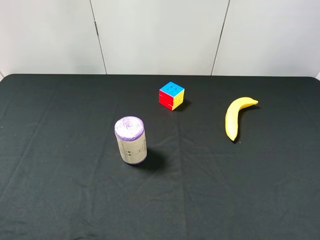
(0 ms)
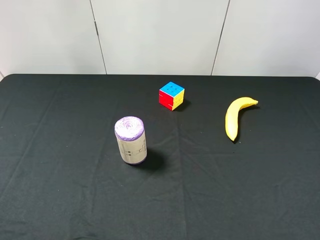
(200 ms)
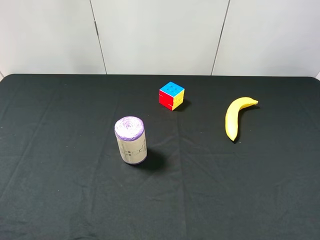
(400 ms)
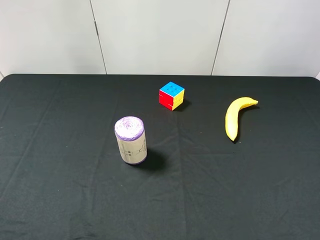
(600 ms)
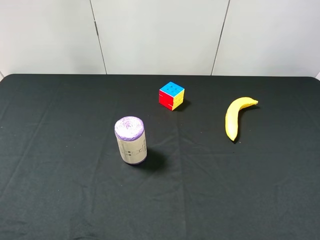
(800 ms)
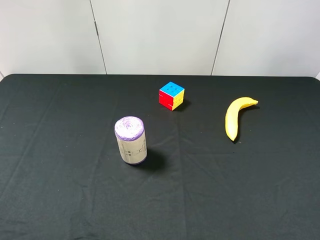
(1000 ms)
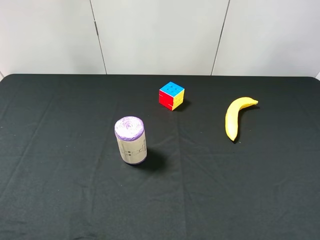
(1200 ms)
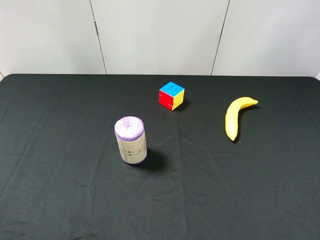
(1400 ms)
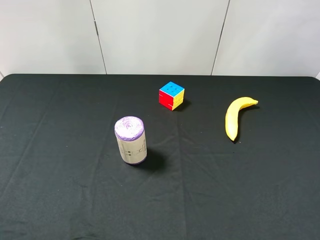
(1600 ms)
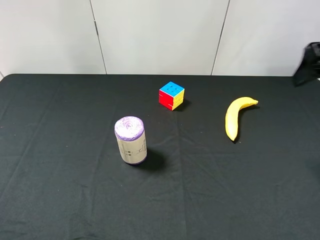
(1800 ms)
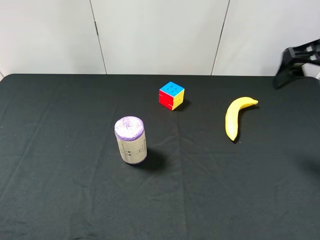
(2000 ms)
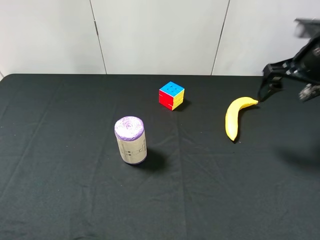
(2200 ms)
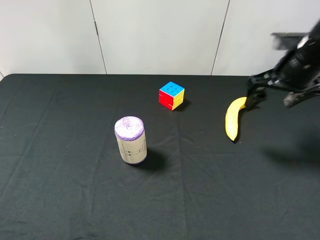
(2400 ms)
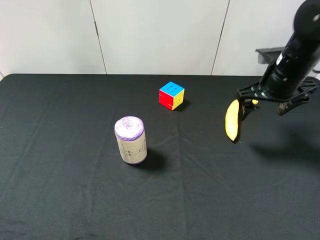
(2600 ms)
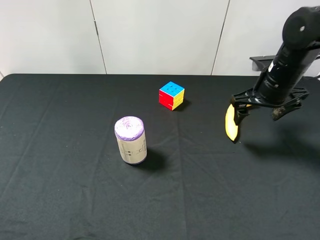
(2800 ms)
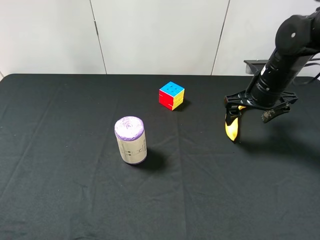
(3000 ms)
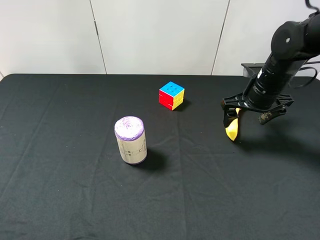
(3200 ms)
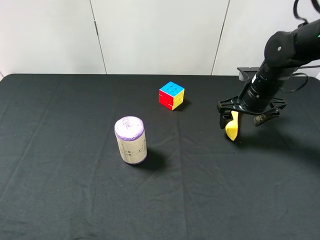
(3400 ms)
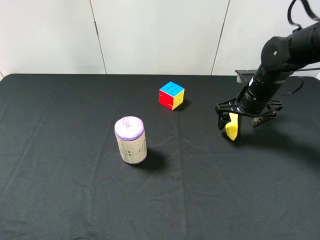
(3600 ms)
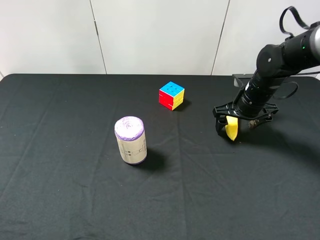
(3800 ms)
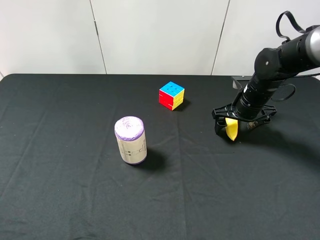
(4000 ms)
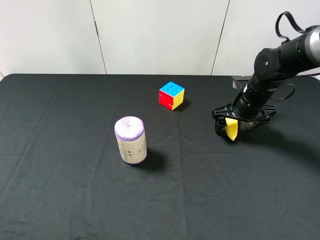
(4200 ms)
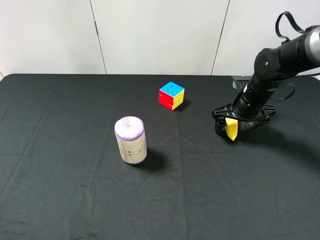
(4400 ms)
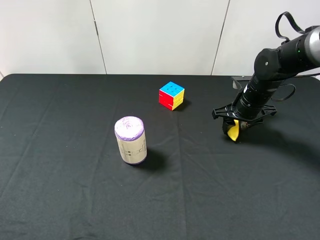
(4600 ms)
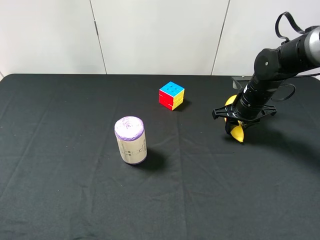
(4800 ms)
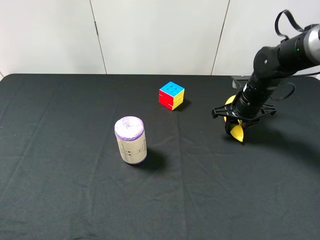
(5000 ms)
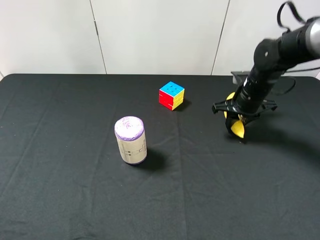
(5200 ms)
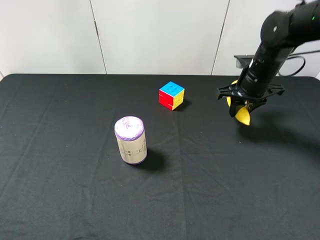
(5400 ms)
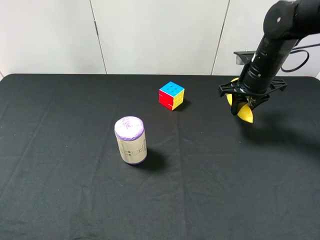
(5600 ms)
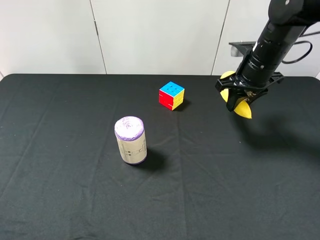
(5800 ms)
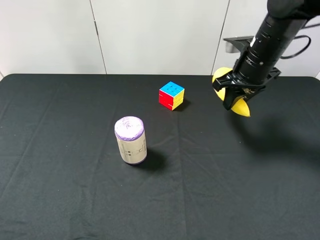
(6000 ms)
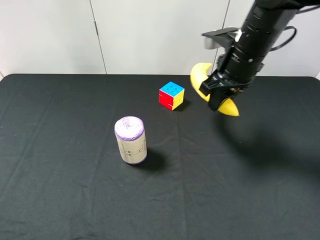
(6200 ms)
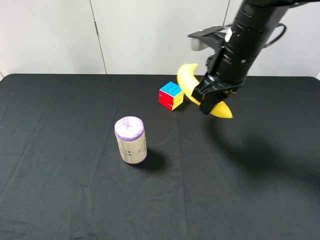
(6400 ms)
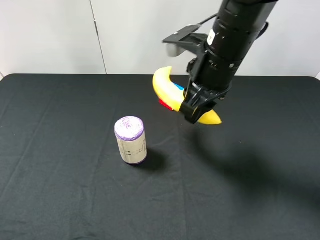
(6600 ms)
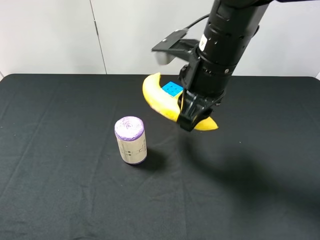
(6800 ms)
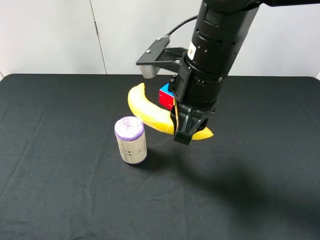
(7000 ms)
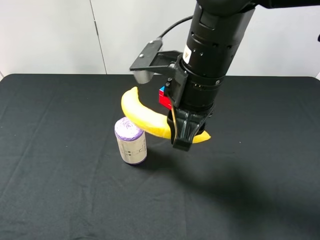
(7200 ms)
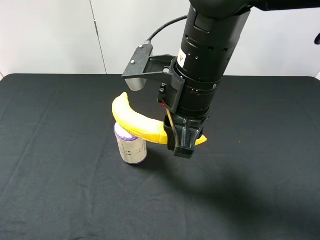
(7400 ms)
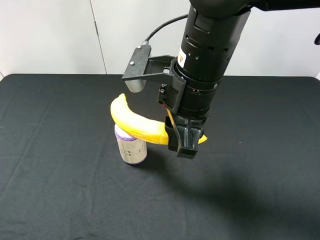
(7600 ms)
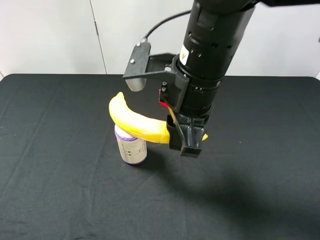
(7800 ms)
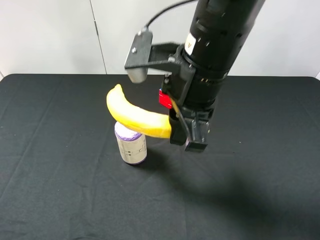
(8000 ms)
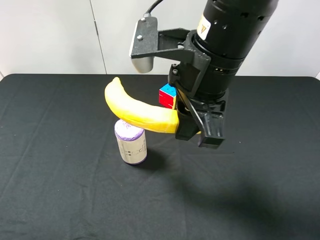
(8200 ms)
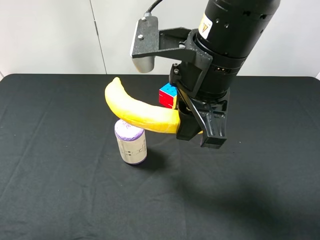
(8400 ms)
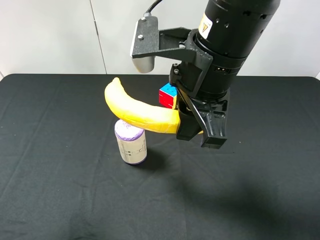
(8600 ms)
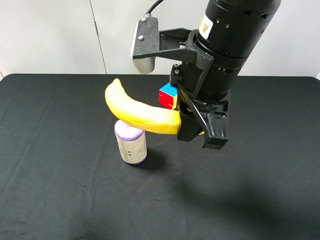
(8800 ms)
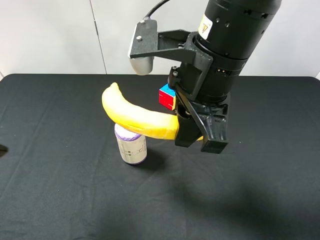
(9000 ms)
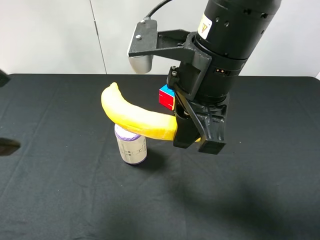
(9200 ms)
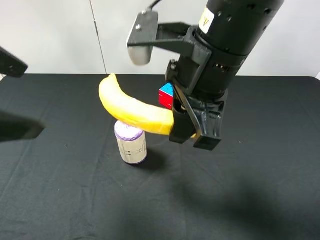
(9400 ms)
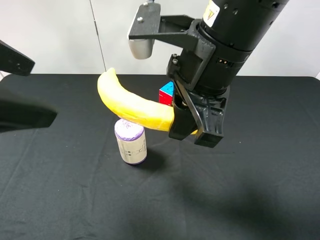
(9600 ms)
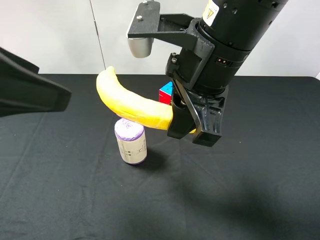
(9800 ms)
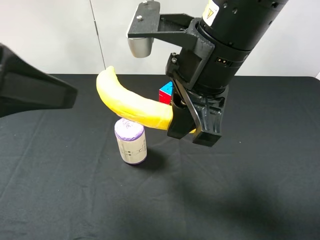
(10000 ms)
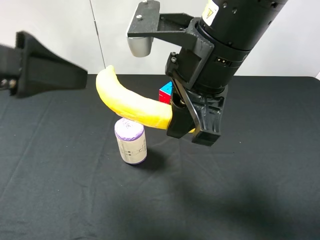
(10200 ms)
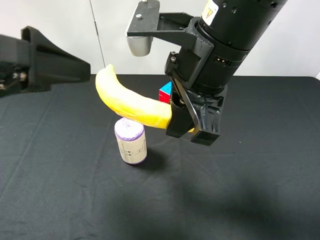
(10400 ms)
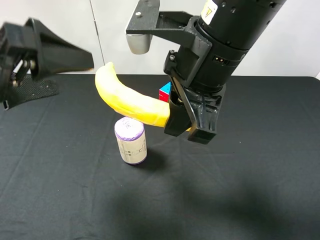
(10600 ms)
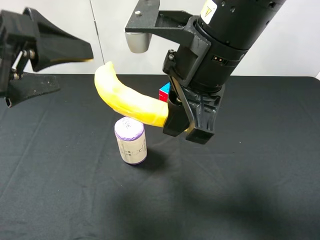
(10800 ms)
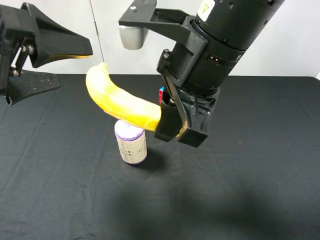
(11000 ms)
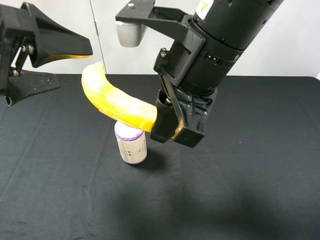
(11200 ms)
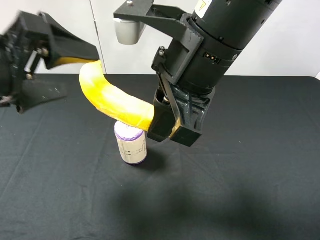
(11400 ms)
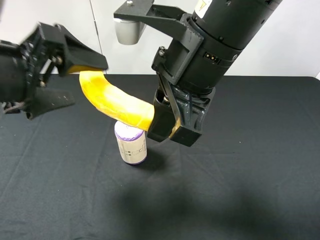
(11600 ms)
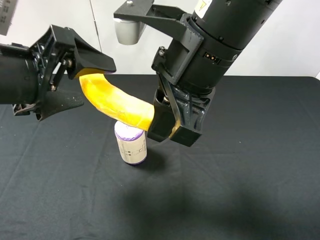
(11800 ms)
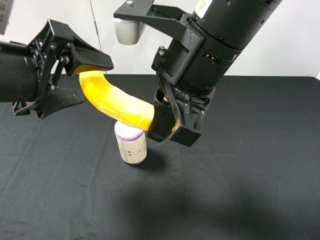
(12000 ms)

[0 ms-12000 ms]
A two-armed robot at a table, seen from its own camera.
Task of the whole recording: use the right gripper to pick up the item and transfer it from the right gripper to the left gripper.
Step, 0 ms to 4600 ms: Use the right gripper to grab the banana on the right side of the table.
1600 ms to 3000 ms: The right gripper shifts some 25 cm downward and forward.
3000 ms to 4400 ms: The right gripper goes roughly 5 cm downward.
4400 ms to 6000 ms: The right gripper goes about 10 cm upward, and closes its fingers.
6000 ms to 7600 ms: The right gripper goes approximately 20 cm to the left and backward.
7600 ms to 9000 ms: The left gripper heads forward, to the right and upward, covering about 15 cm.
9000 ms to 10400 ms: The left gripper moves about 5 cm.

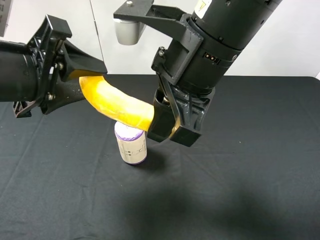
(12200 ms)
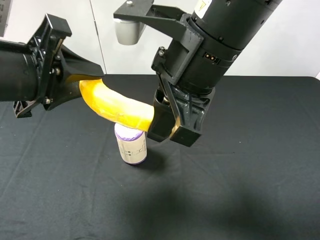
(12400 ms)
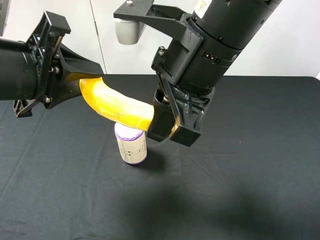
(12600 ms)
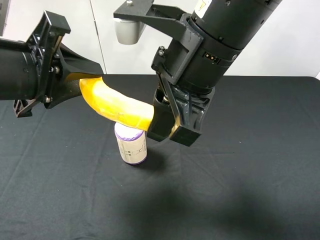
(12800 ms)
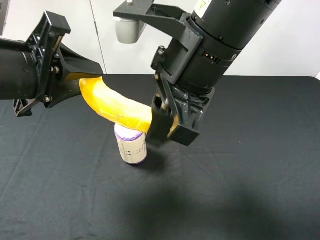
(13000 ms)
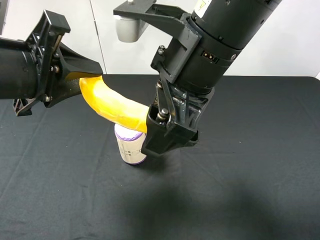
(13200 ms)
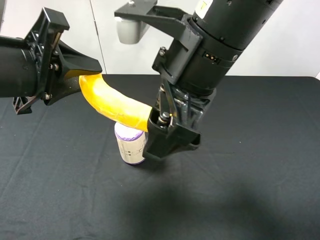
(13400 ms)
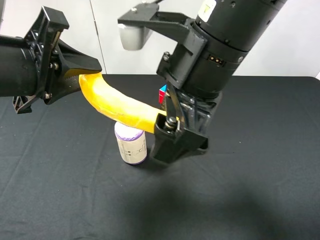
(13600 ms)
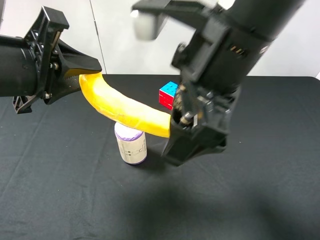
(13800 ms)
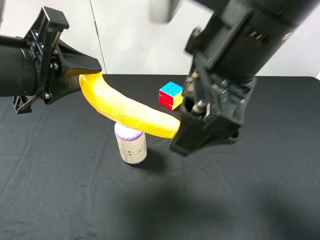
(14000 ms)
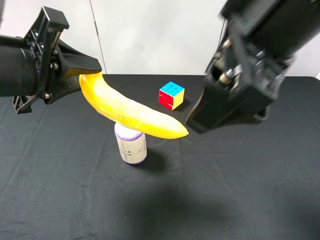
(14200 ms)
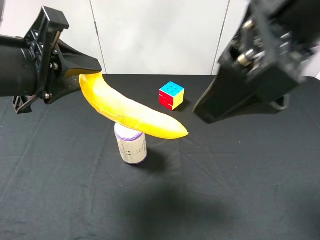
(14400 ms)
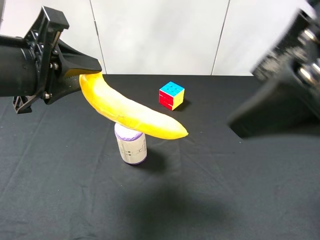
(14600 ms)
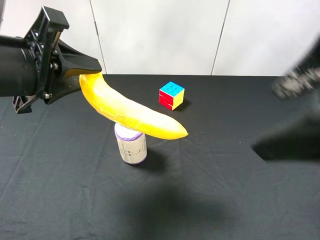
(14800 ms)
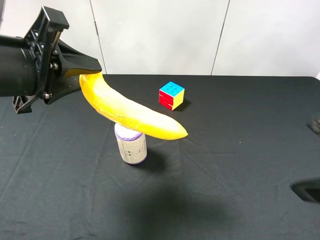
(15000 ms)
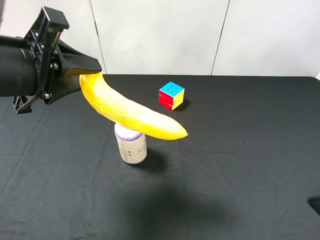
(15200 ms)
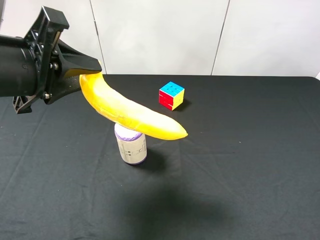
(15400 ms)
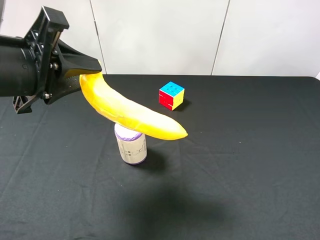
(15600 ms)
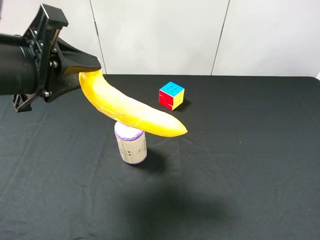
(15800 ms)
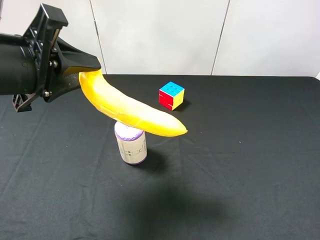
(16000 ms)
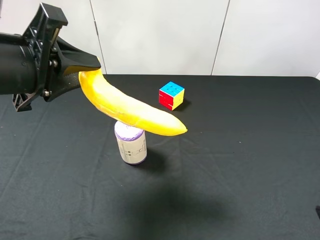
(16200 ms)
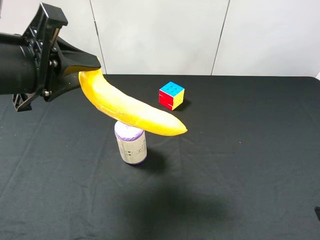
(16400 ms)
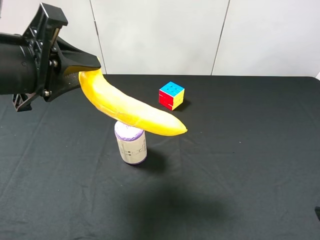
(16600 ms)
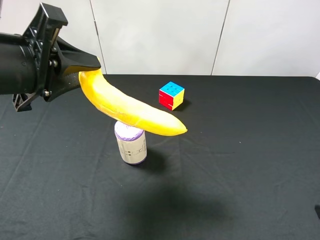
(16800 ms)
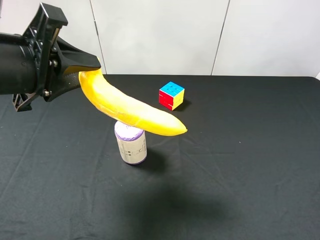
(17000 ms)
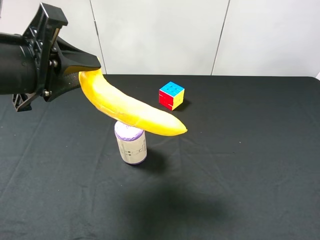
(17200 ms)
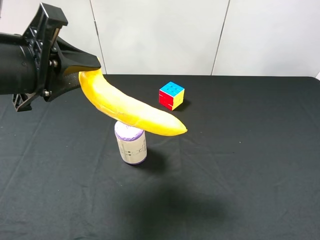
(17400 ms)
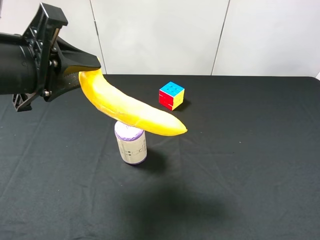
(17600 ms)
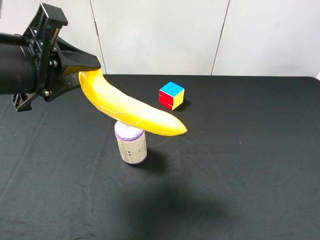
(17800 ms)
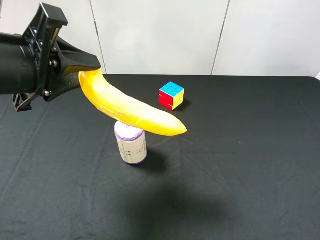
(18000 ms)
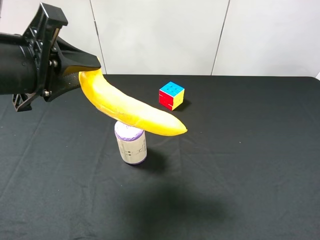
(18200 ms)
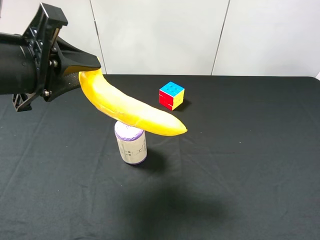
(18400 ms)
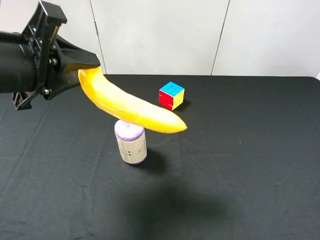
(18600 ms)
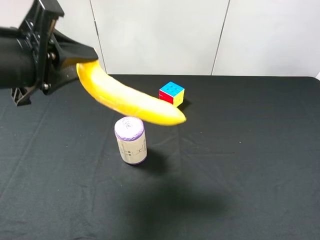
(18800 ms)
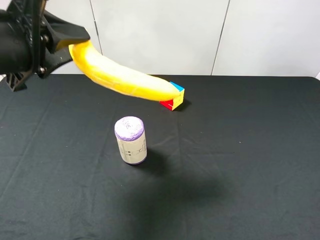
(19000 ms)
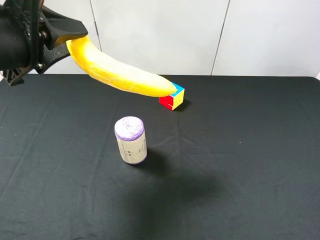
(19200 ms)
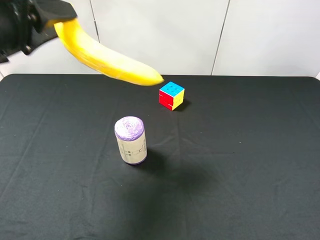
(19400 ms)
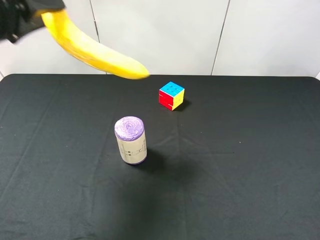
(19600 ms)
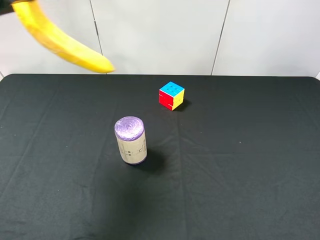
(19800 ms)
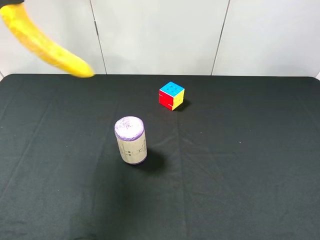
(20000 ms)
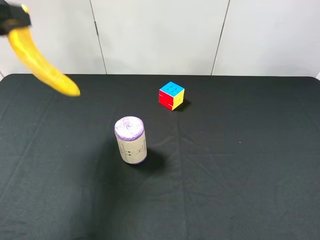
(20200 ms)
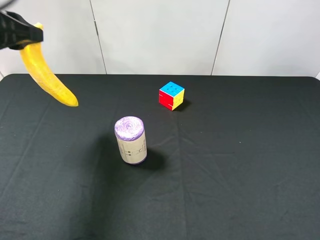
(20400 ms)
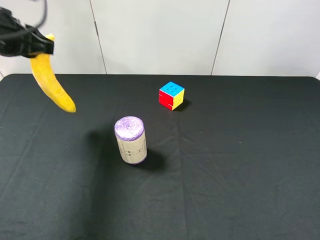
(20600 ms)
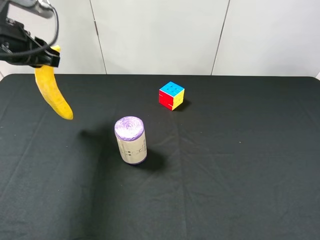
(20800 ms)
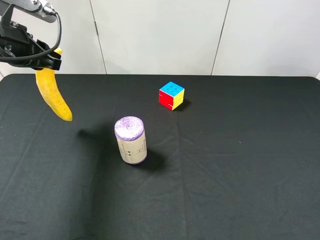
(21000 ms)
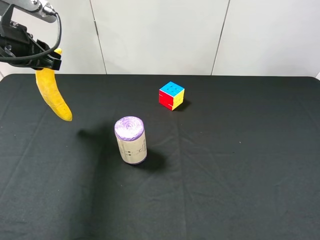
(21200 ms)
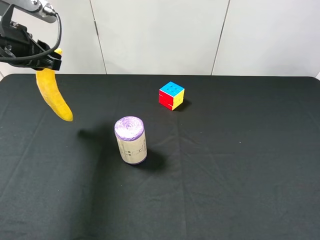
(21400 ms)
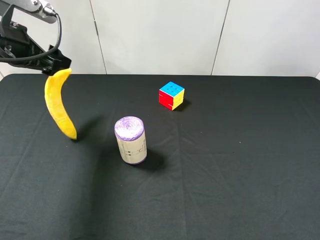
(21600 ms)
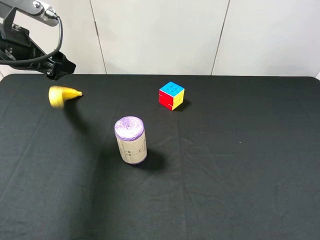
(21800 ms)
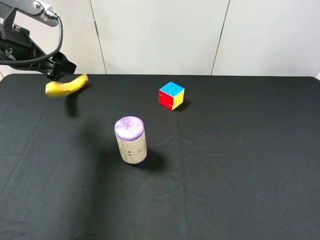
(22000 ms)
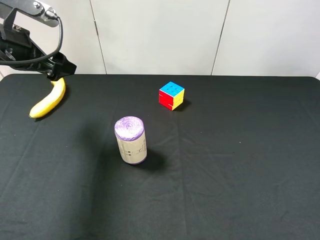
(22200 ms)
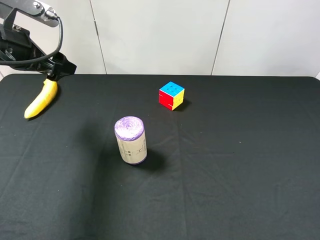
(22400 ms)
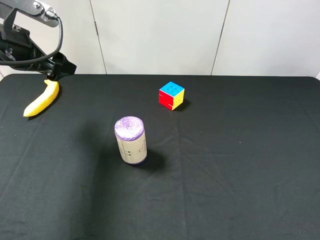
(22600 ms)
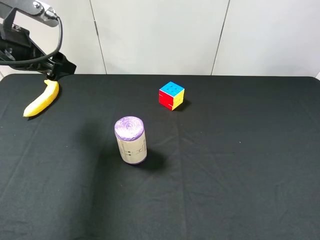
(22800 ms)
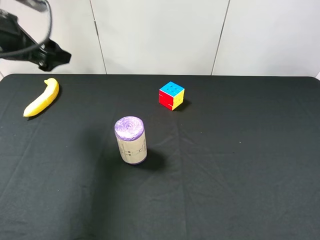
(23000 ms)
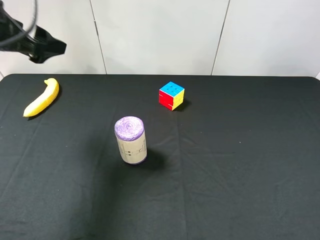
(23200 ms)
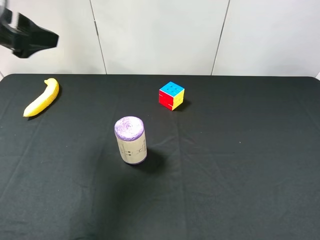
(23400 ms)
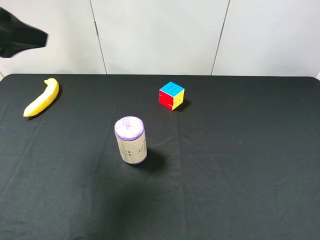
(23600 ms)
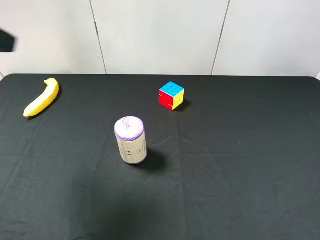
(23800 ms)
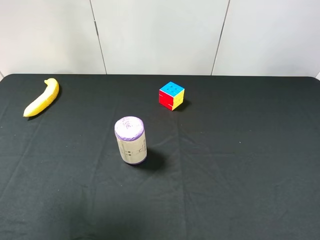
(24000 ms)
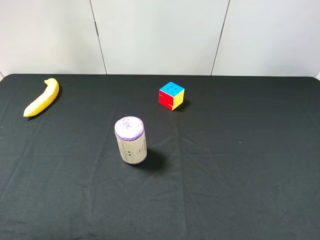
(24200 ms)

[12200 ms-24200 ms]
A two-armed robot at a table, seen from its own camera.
Task of the whole recording: use the right gripper to pick up the item and transfer it from the right gripper to the left gripper.
Step, 14400 ms to 22000 ms: The left gripper places banana on the left side of the table.
12200 ms to 13800 ms: The right gripper opens.
13800 ms to 15200 ms: The right gripper goes approximately 20 cm to the right and backward.
15200 ms to 16600 ms: The right gripper moves approximately 5 cm.
18200 ms to 19800 ms: The left gripper heads to the left and upward, covering about 10 cm.
19800 ms to 21200 ms: The left gripper is displaced downward and forward by about 10 cm.
21200 ms to 22600 ms: The left gripper opens its fingers.
22600 ms to 24200 ms: The left gripper heads backward and upward, covering some 25 cm.
